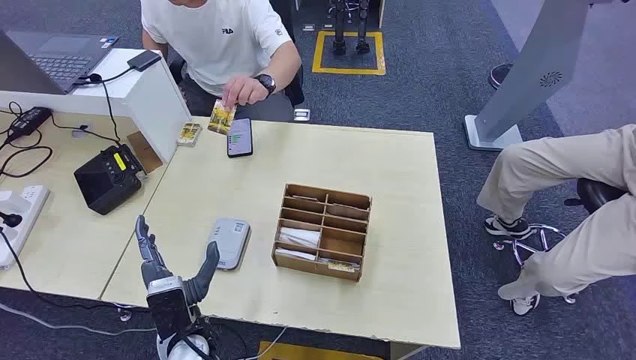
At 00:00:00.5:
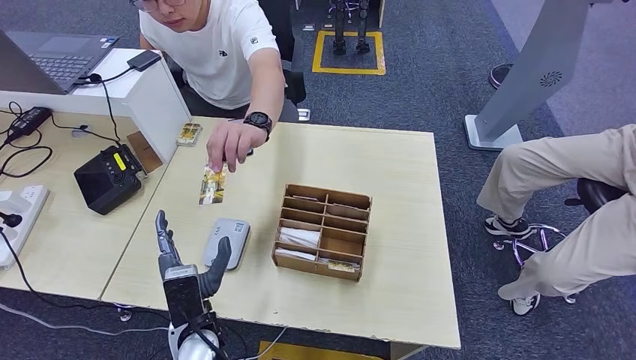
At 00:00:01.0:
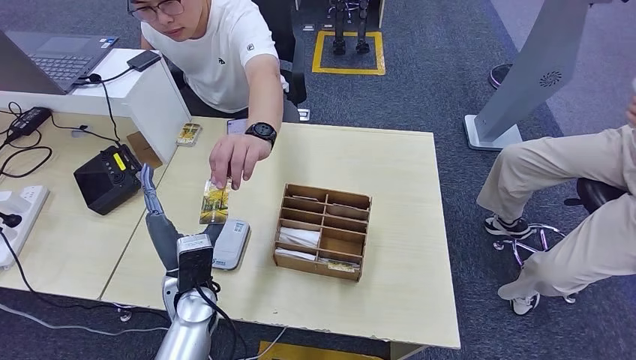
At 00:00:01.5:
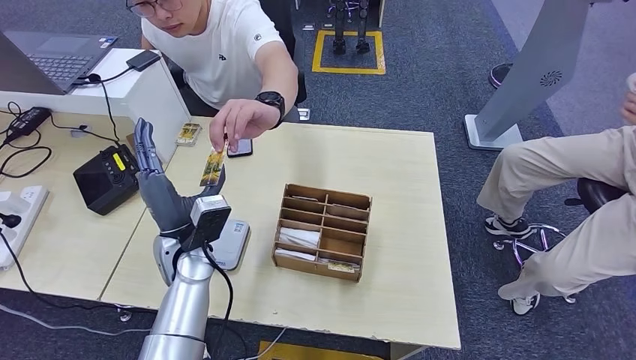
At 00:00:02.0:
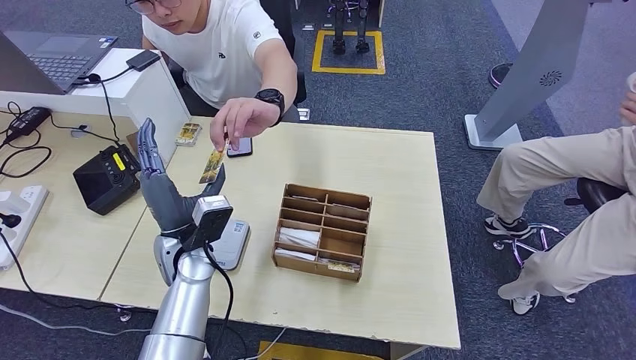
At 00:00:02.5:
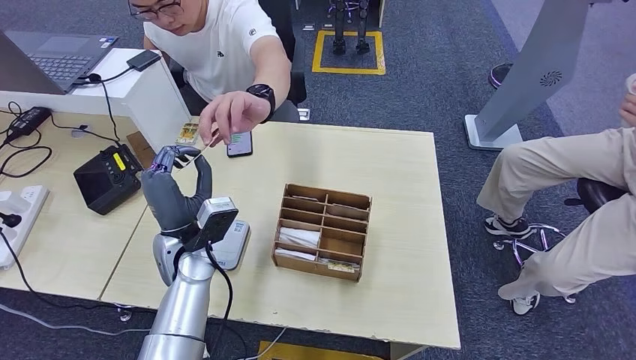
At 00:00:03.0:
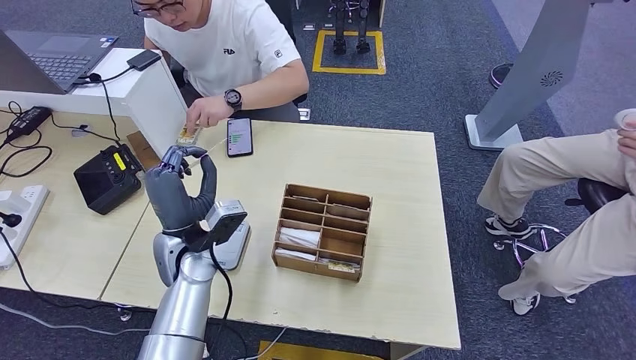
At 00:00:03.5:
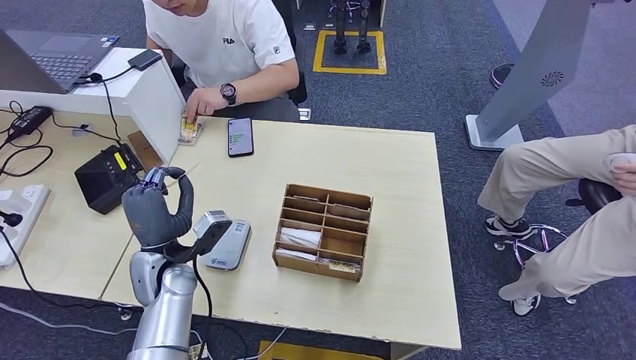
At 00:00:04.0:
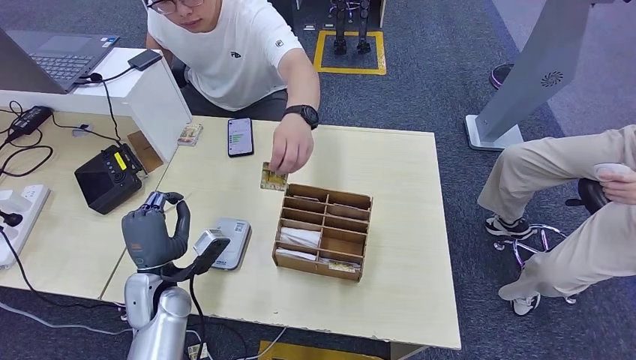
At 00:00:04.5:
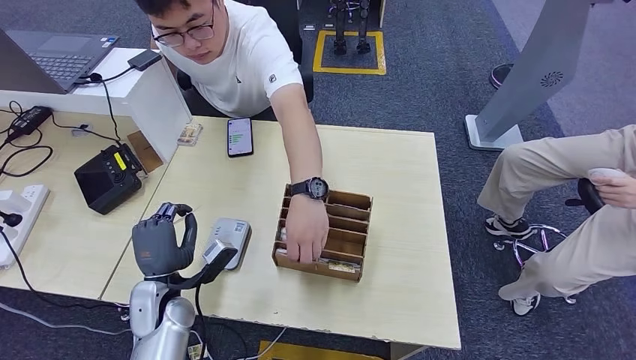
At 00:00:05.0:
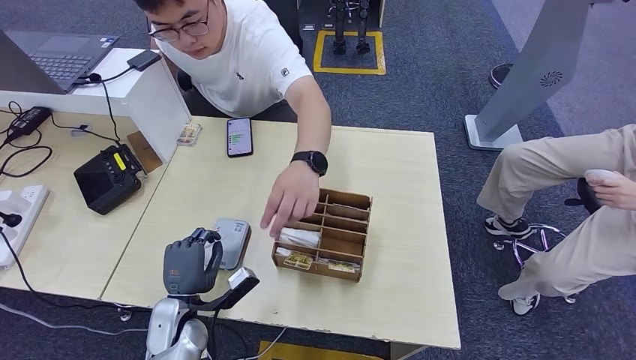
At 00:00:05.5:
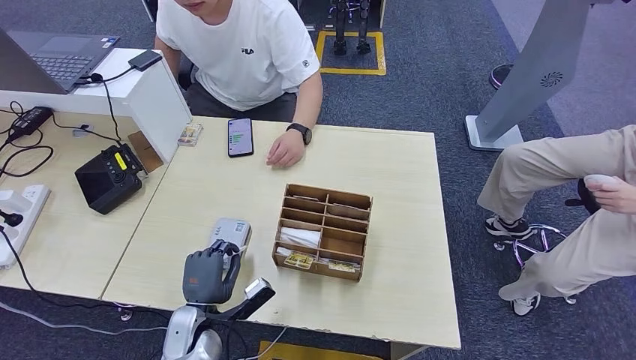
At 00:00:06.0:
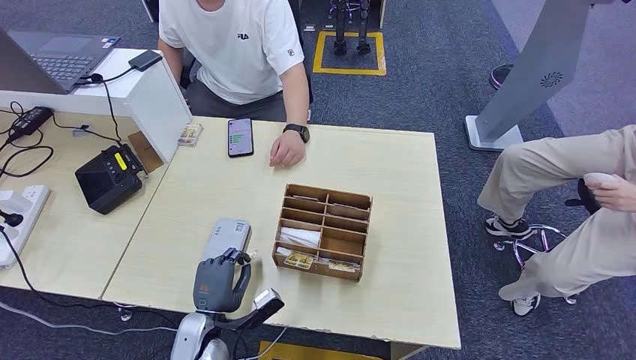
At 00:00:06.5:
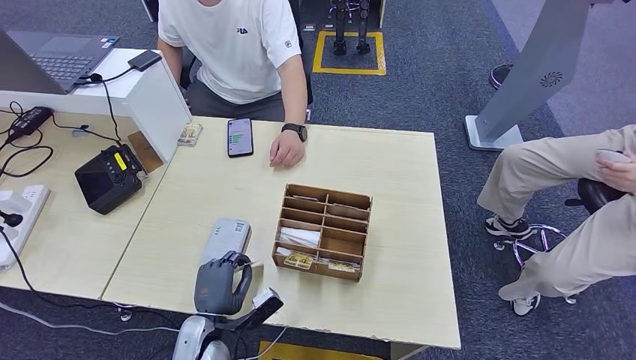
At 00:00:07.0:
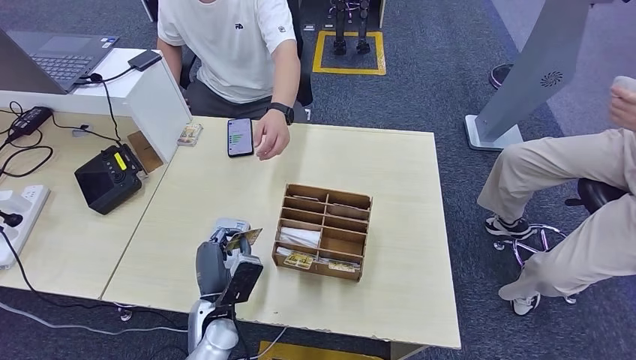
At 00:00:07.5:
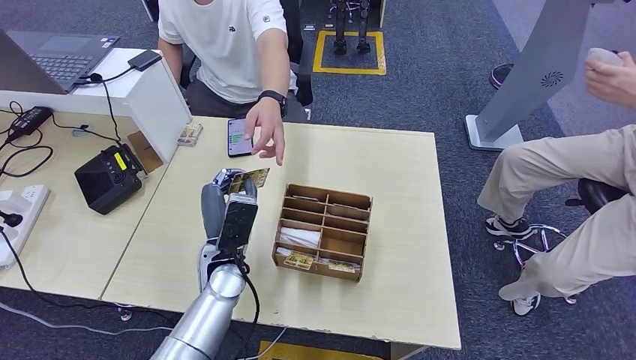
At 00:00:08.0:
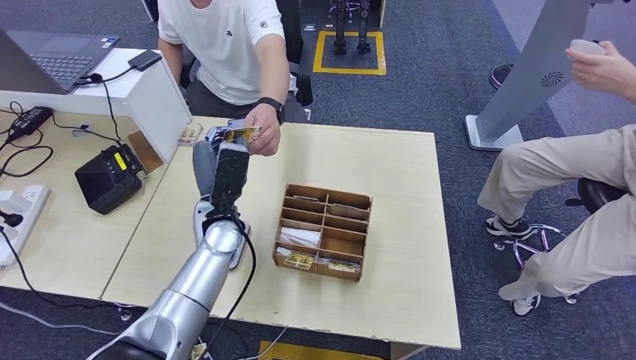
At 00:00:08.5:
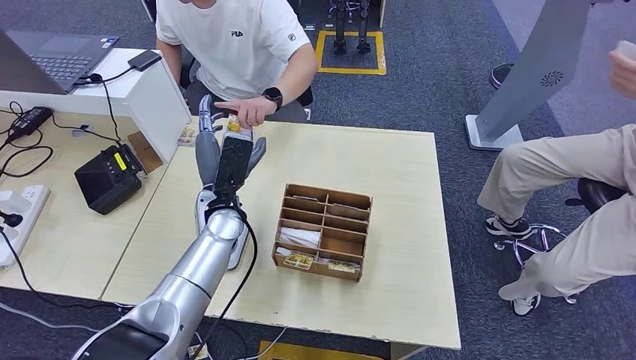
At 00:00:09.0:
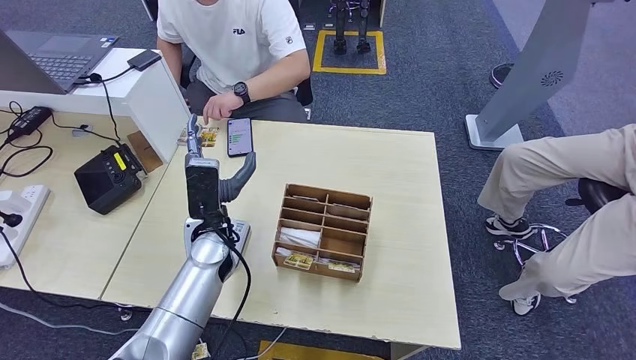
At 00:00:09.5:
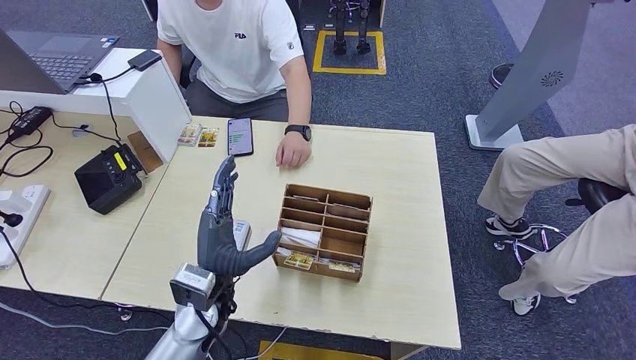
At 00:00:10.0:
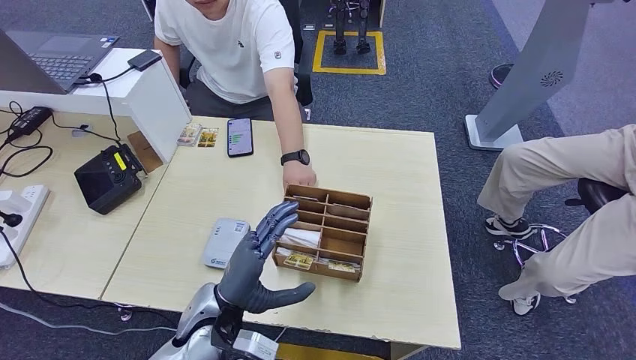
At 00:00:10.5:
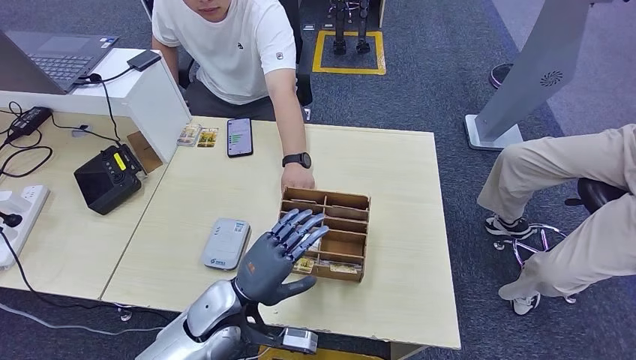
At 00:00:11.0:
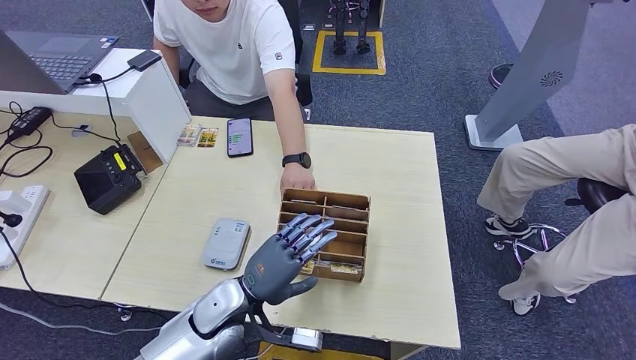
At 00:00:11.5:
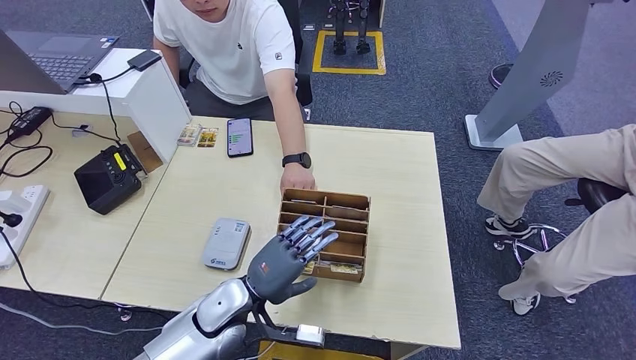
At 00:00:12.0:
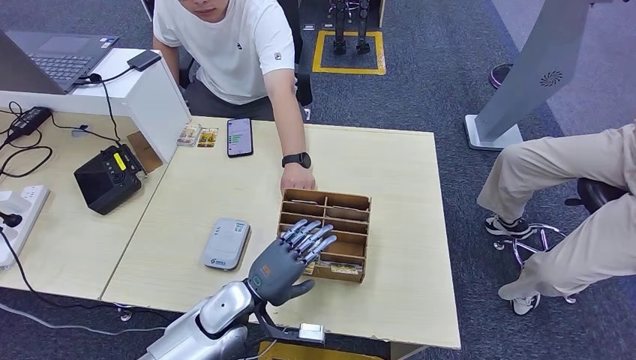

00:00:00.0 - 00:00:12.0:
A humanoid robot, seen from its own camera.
Step, 00:00:00.0 - 00:00:03.0: Take the ID card from the person's hand.
Step, 00:00:03.5 - 00:00:06.5: Place the ID card on the card reader.
Step, 00:00:07.0 - 00:00:08.5: Hand the ID card to the person.
00:00:02.0 - 00:00:04.0: The left hand shifts some 10 cm downward, to the left and backward.
00:00:04.0 - 00:00:06.0: The left hand travels downward, to the right and backward by roughly 10 cm.
00:00:06.0 - 00:00:08.0: The left hand goes roughly 25 cm upward and forward.
00:00:08.0 - 00:00:10.0: The left hand heads backward, covering some 15 cm.
00:00:10.0 - 00:00:12.0: The left hand moves downward, approximately 5 cm.

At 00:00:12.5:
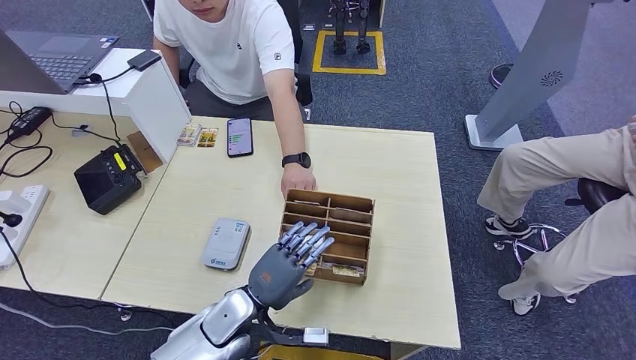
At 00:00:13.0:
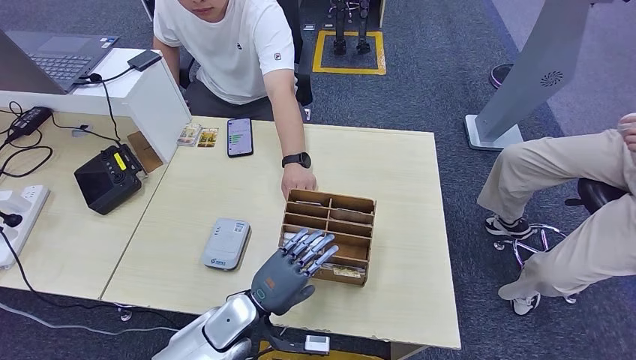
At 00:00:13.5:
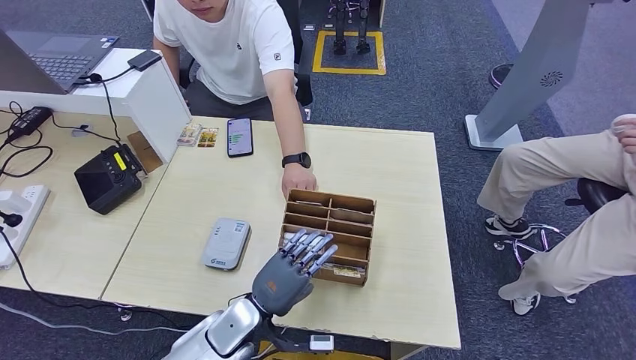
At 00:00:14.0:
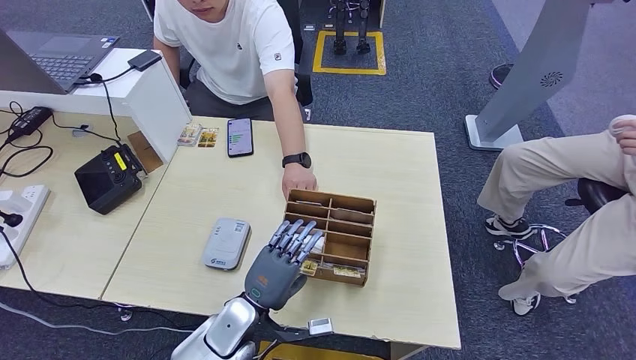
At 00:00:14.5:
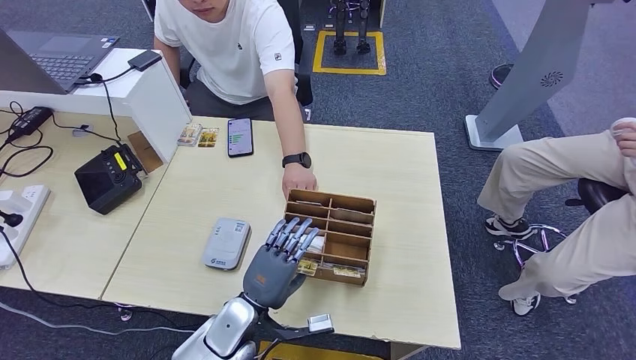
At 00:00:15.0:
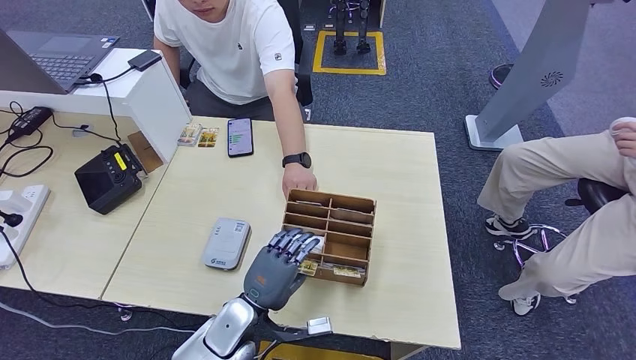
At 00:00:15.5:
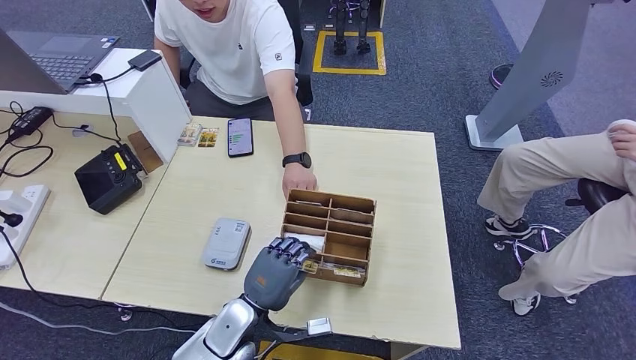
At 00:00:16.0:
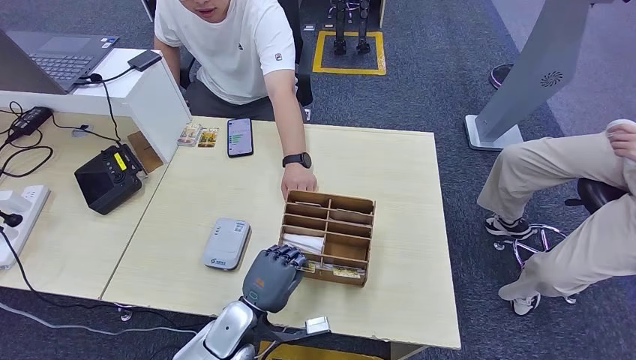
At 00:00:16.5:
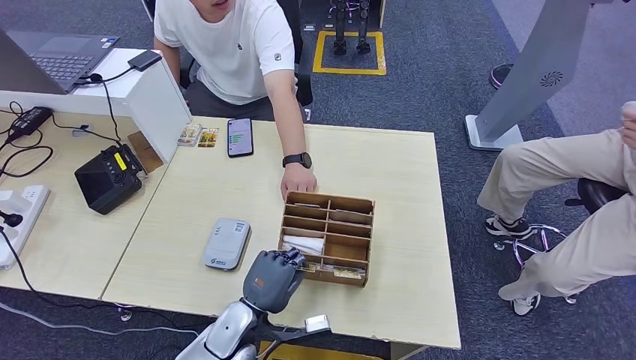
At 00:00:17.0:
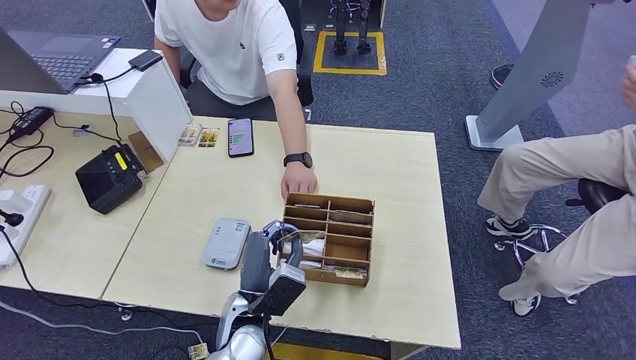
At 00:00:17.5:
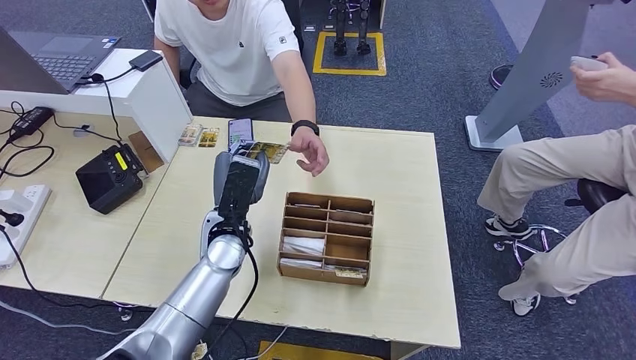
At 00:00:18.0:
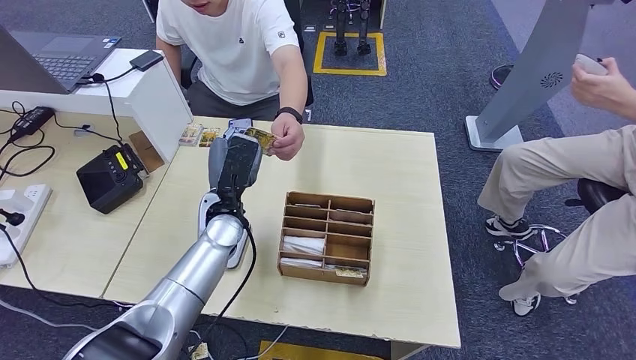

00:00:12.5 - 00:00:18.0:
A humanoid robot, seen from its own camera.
Step, 00:00:12.5 - 00:00:16.0: Pick up the room key from the key card box.
Step, 00:00:16.5 - 00:00:18.0: Hand the room key to the person.
00:00:12.5 - 00:00:16.0: The hands stay close to where they were, moving slightly.
00:00:16.0 - 00:00:18.0: The left hand moves forward and upward, about 20 cm.

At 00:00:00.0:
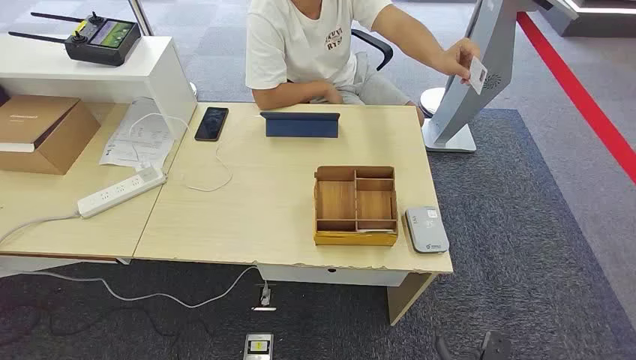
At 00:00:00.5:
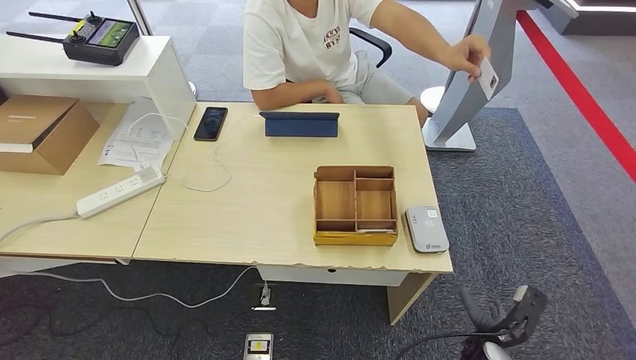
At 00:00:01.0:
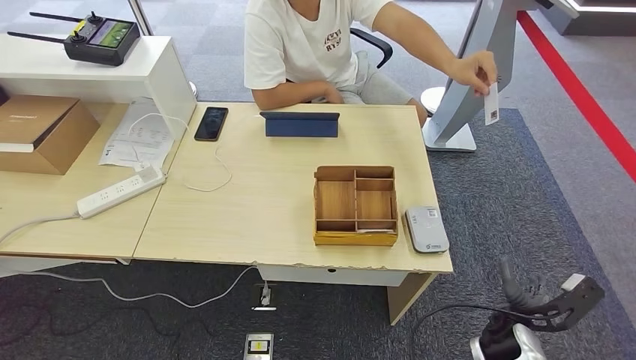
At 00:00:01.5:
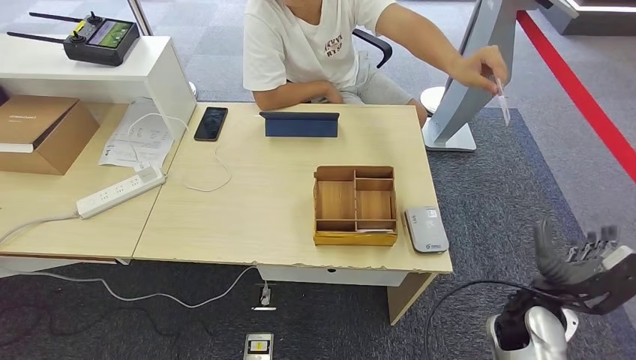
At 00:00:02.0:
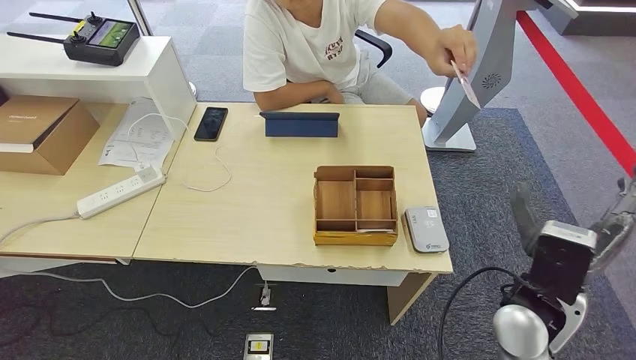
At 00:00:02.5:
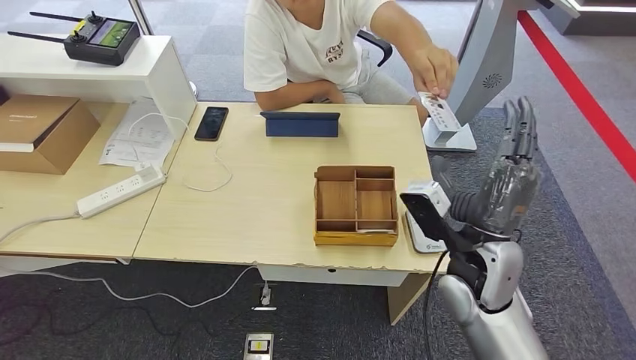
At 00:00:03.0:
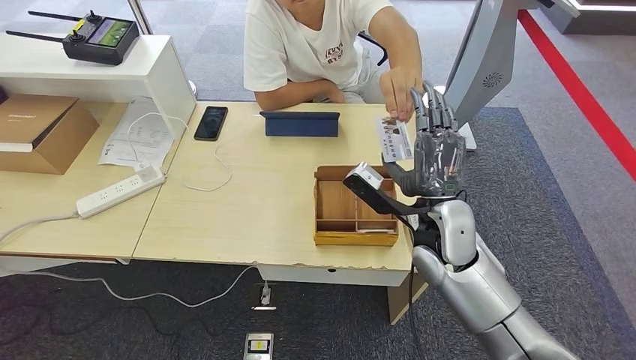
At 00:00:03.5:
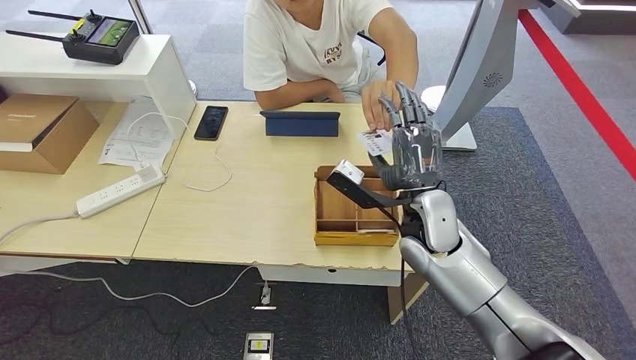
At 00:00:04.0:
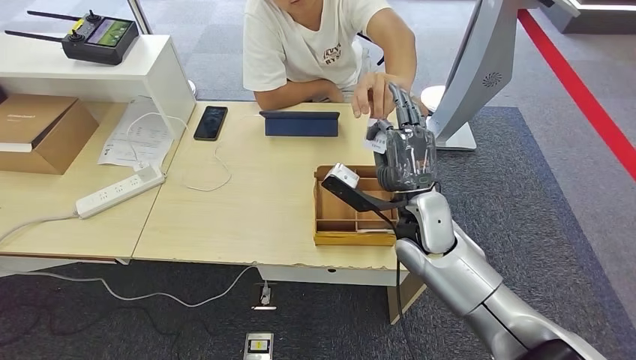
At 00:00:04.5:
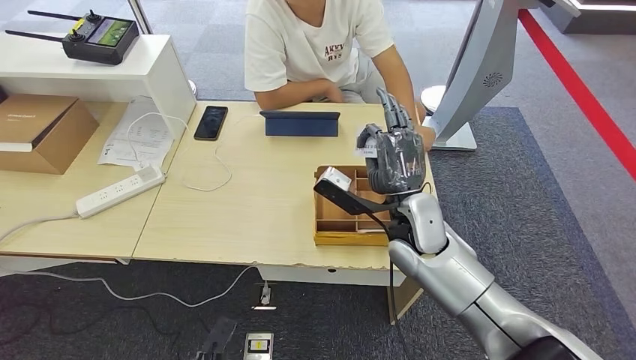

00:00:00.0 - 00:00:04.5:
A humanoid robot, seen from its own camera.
00:00:02.0 - 00:00:04.5: The left hand goes roughly 10 cm forward. The right hand is displaced forward and to the left by about 15 cm.
